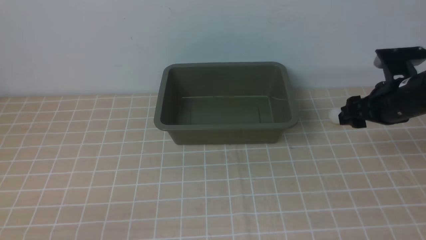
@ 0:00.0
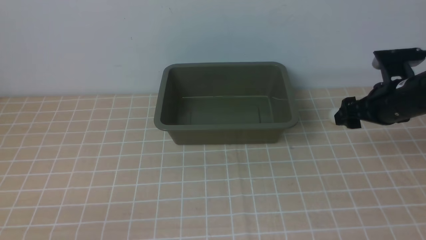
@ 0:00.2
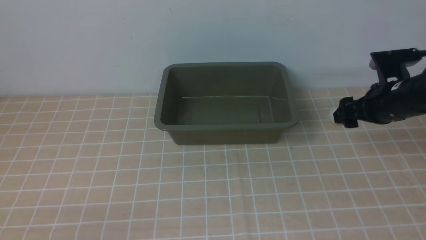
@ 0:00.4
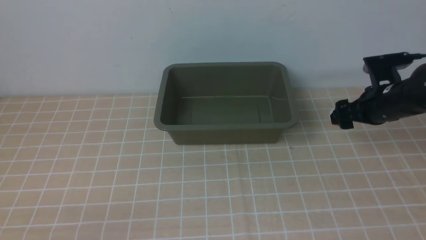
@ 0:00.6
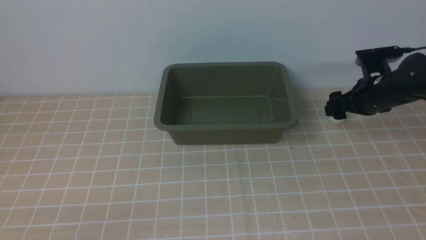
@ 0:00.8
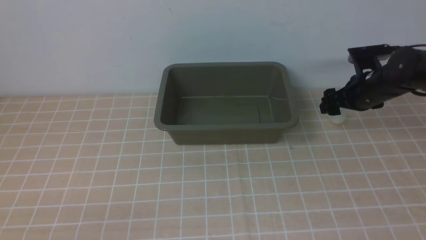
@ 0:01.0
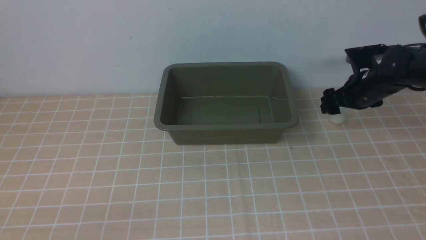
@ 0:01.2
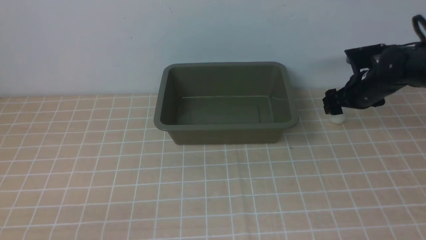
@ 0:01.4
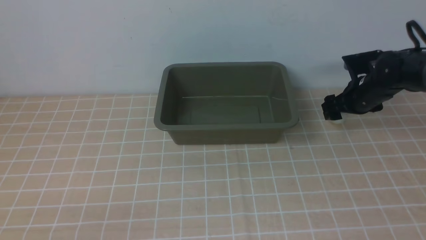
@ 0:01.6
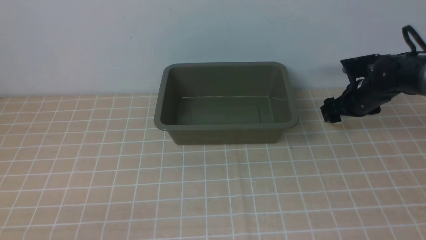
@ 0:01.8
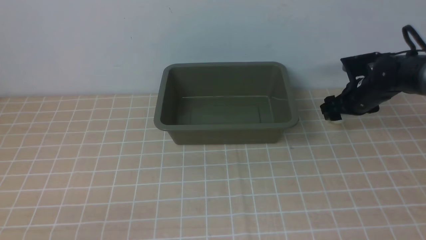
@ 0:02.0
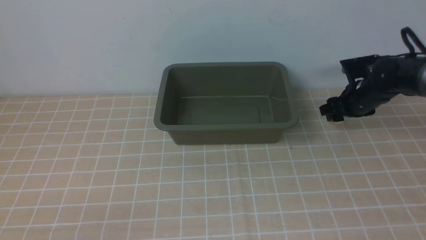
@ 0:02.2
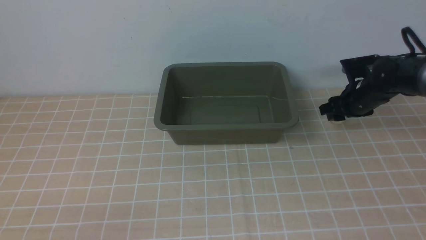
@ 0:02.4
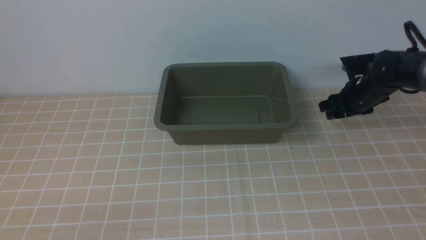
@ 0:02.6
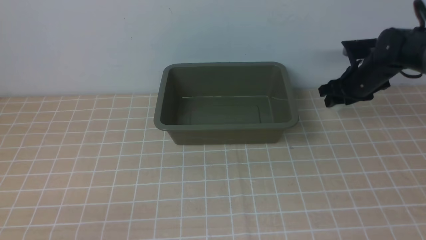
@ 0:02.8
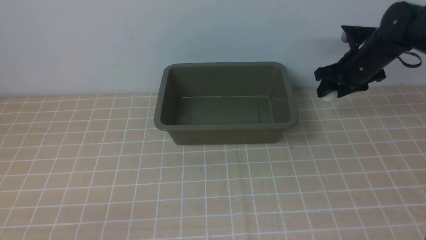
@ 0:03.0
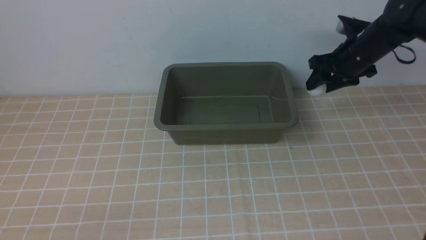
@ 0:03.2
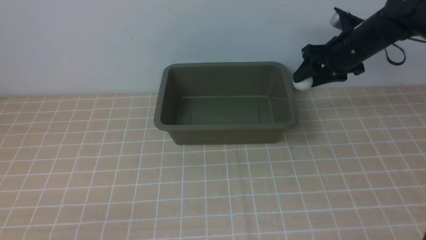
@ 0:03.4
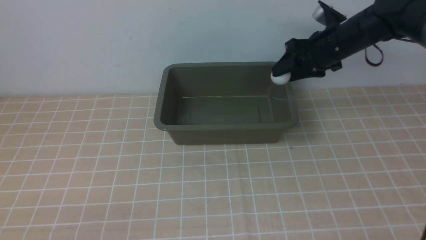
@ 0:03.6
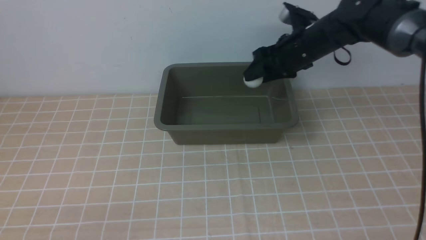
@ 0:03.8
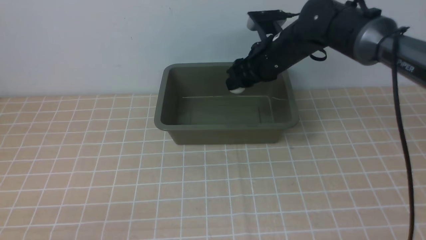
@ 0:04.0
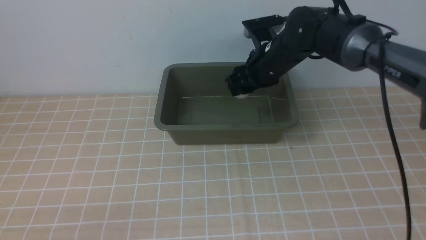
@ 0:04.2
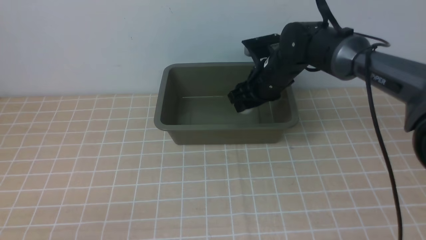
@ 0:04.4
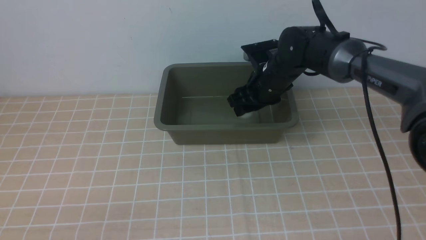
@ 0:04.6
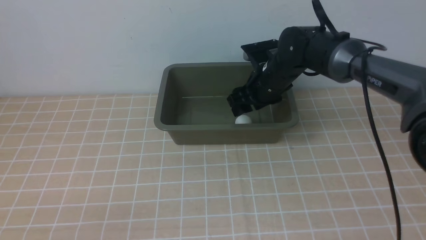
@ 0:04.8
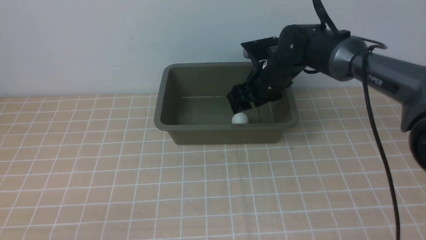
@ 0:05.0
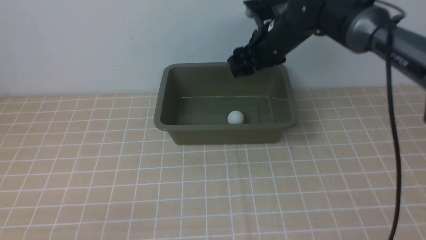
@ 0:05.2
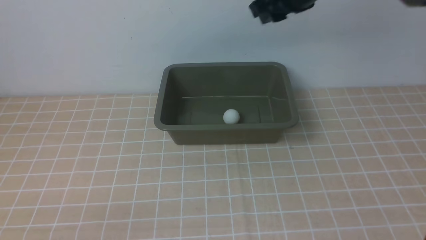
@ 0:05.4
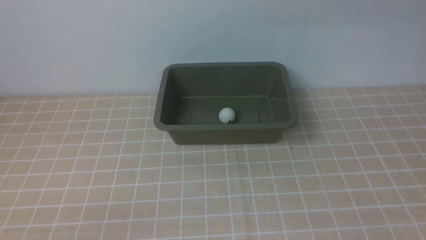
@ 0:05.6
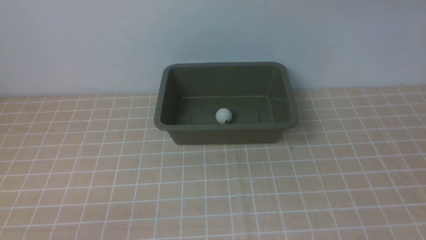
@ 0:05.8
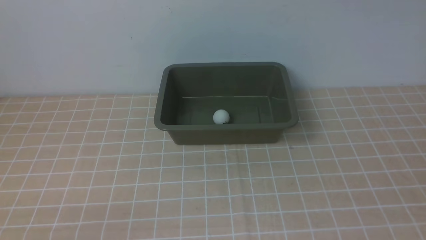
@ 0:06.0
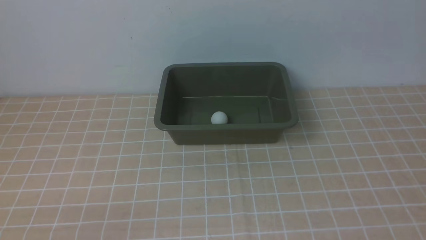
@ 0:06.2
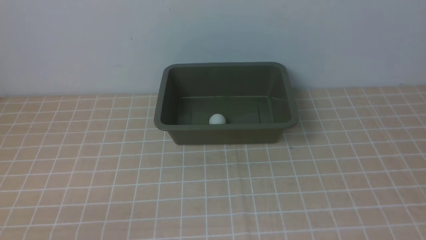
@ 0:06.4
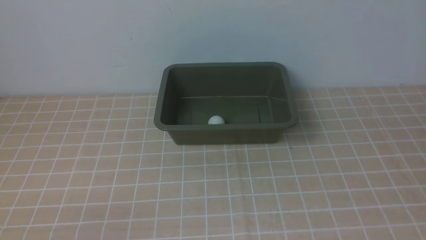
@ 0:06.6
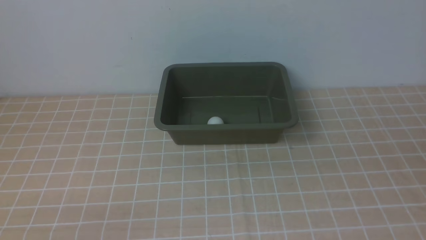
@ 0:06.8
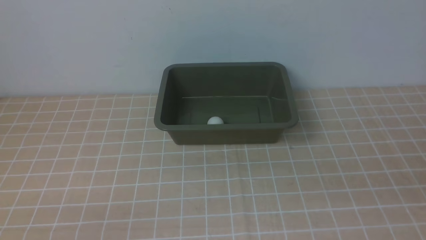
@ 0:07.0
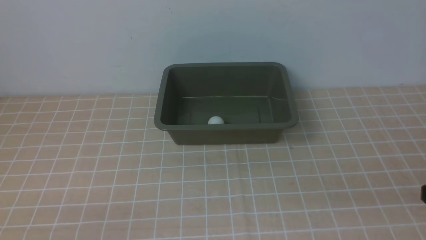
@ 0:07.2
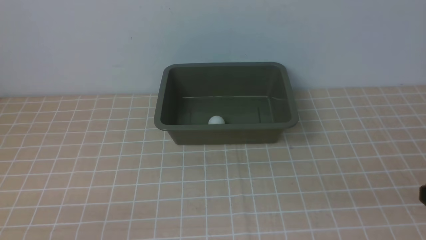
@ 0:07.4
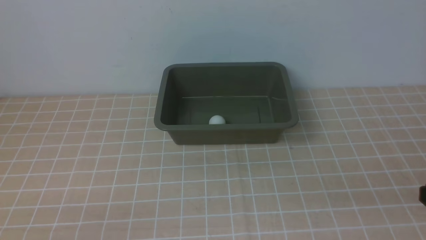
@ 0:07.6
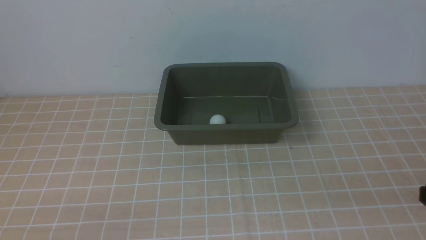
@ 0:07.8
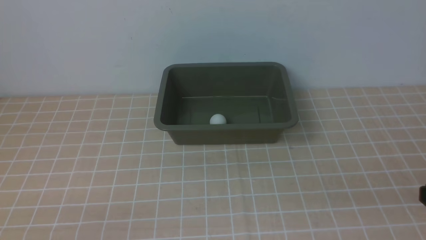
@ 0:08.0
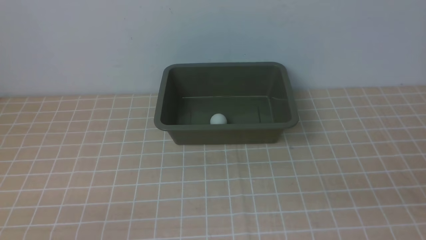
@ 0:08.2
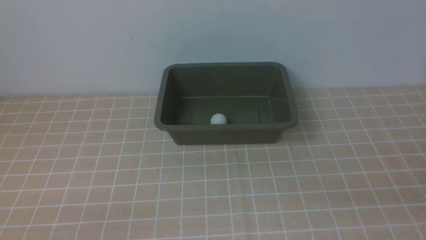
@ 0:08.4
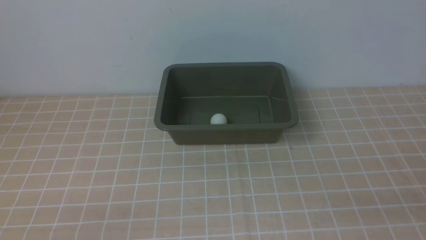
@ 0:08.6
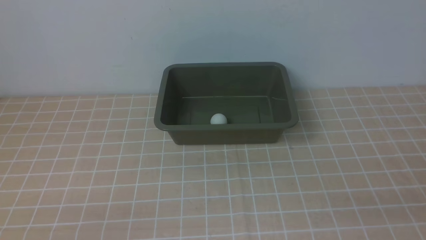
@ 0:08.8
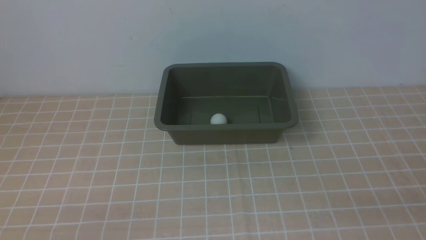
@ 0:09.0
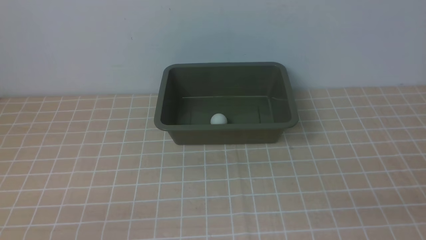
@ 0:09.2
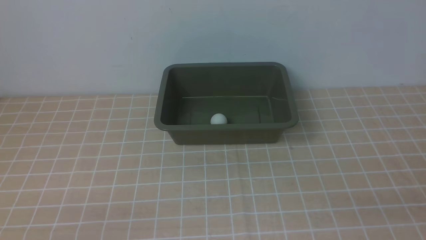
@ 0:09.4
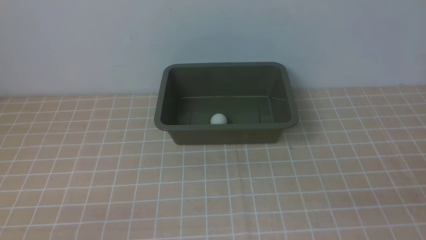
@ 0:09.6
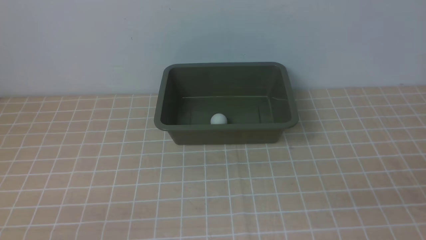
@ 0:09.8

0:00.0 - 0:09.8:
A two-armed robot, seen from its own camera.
Step, 0:00.0 - 0:03.0: use the right arm to clamp the table tennis ball closest to it.
Step, 0:03.2 - 0:04.8: use the right arm to put the table tennis ball into the box.
0:00.0 - 0:01.4: The right gripper moves forward and downward, roughly 10 cm.
0:01.4 - 0:02.8: The right gripper closes its fingers.
0:02.8 - 0:04.2: The right gripper is displaced to the left by some 20 cm.
0:04.2 - 0:05.6: The right gripper heads upward, covering some 20 cm.

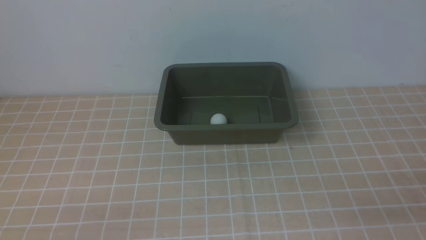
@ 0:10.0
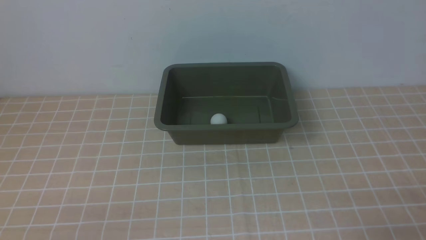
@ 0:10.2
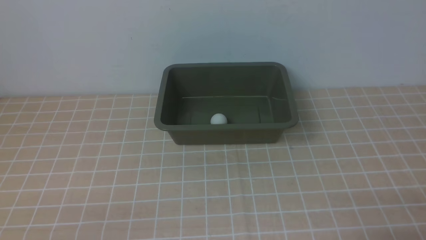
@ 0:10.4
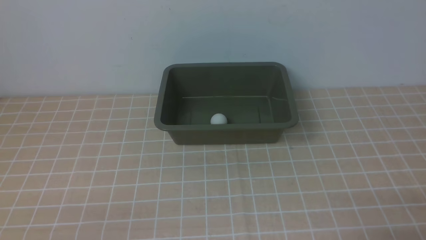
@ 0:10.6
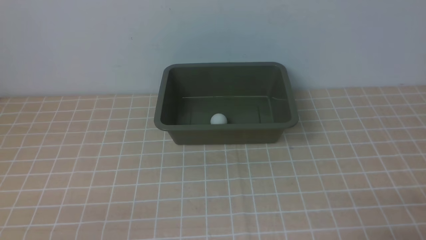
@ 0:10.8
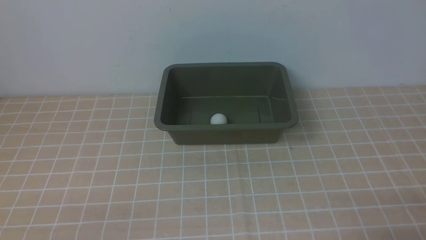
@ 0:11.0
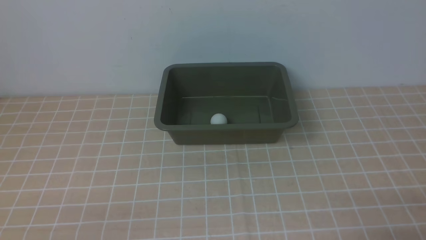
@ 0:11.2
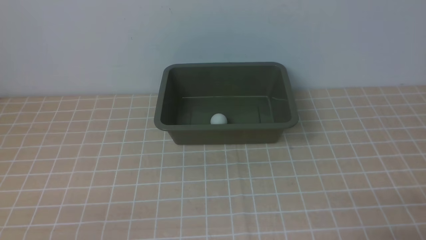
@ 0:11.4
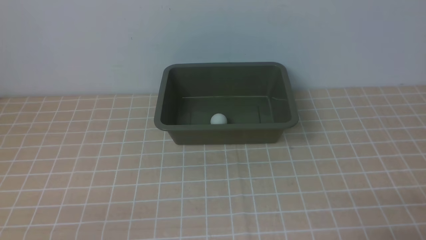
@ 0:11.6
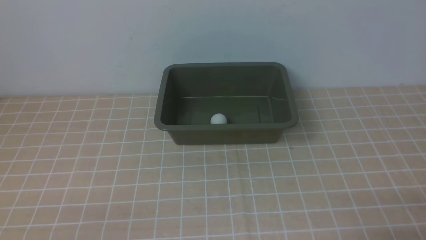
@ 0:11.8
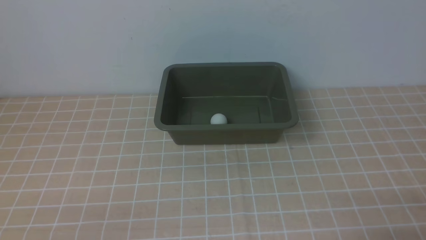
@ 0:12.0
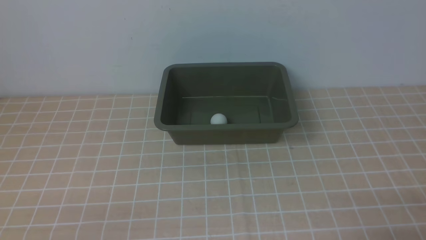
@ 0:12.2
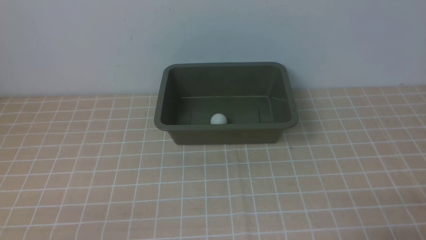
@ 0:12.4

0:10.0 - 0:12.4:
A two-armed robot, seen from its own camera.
0:11.2 - 0:12.4: Both grippers stay put.
